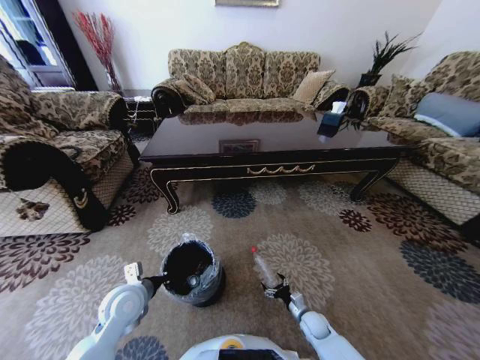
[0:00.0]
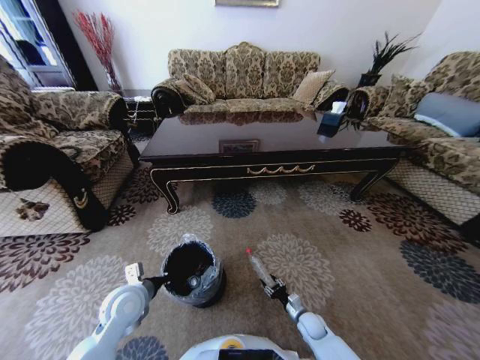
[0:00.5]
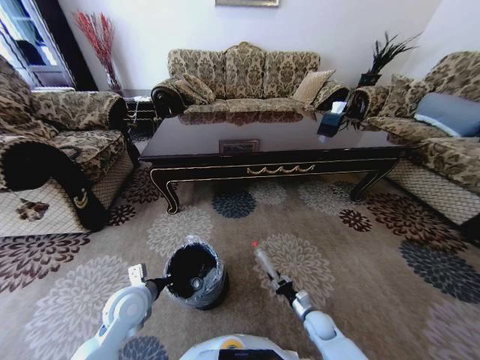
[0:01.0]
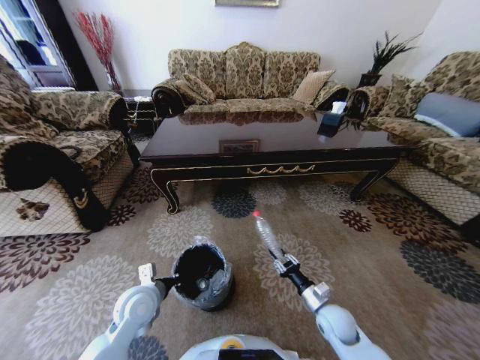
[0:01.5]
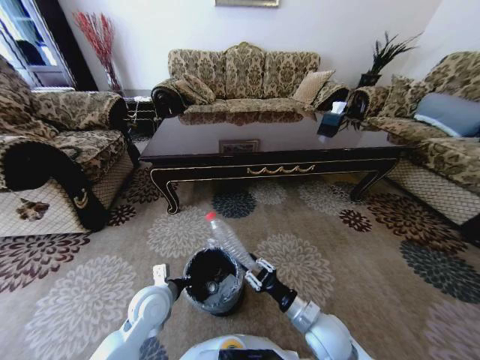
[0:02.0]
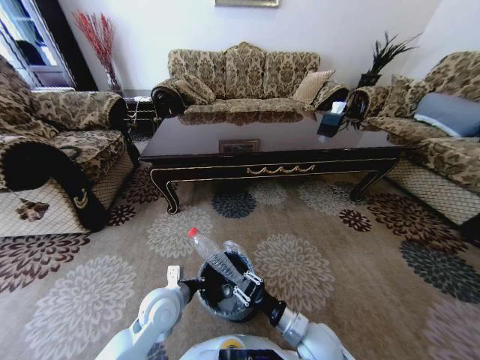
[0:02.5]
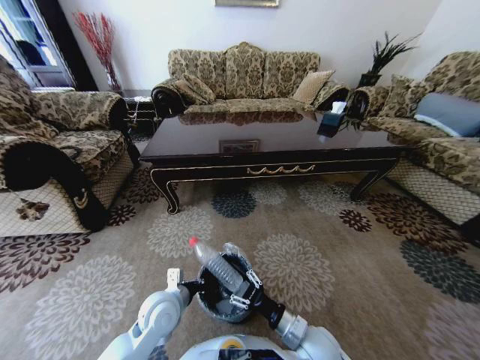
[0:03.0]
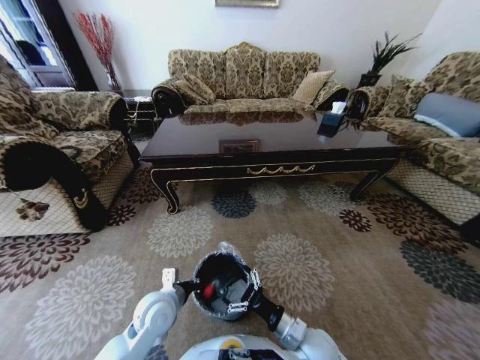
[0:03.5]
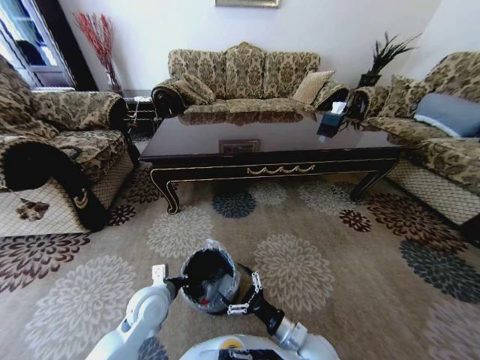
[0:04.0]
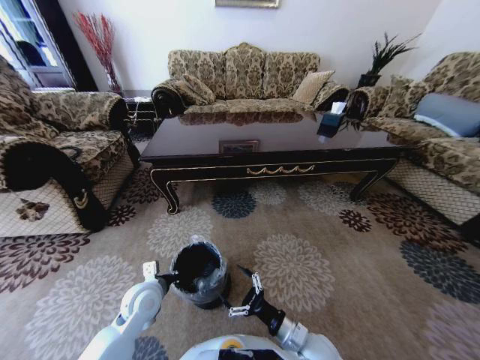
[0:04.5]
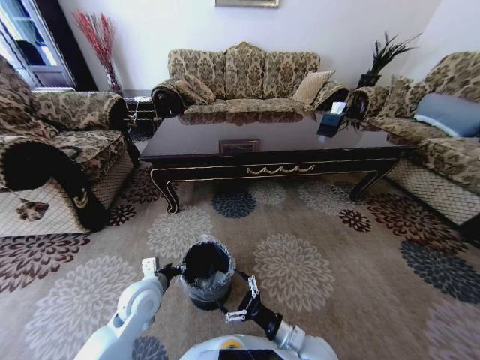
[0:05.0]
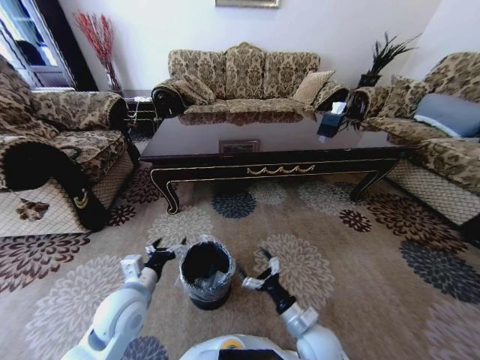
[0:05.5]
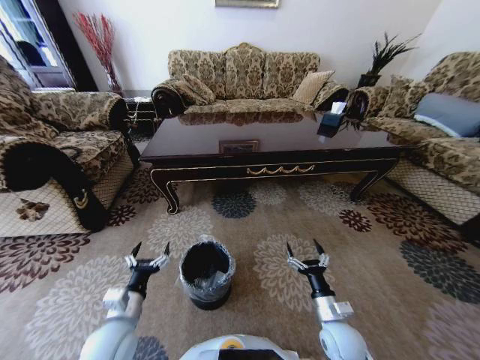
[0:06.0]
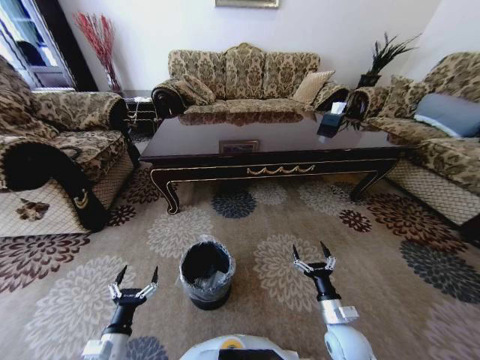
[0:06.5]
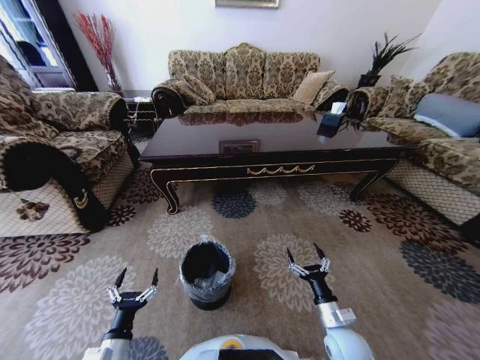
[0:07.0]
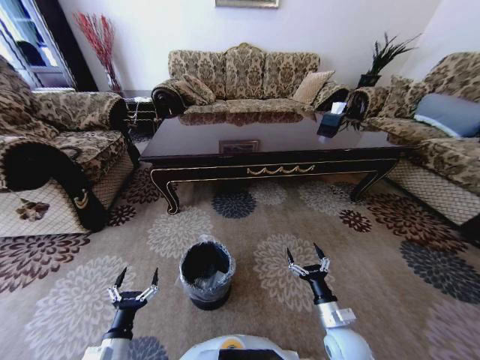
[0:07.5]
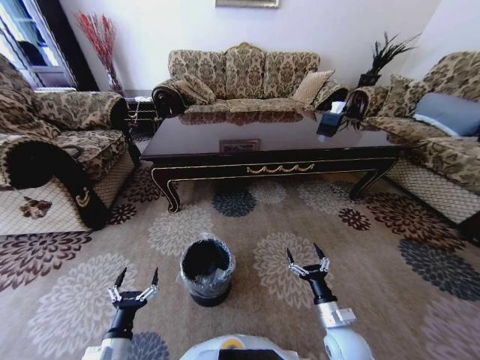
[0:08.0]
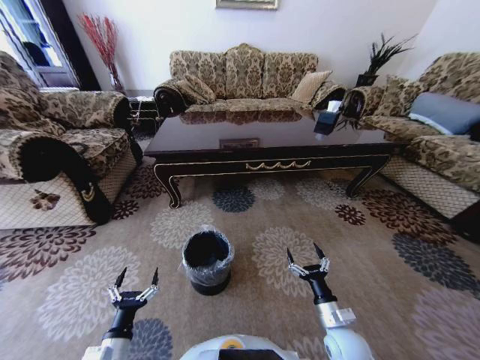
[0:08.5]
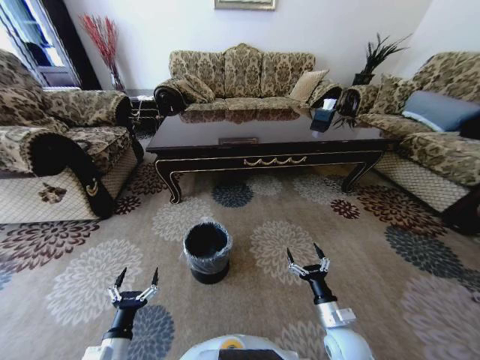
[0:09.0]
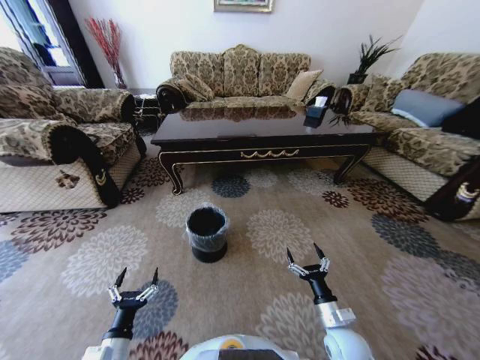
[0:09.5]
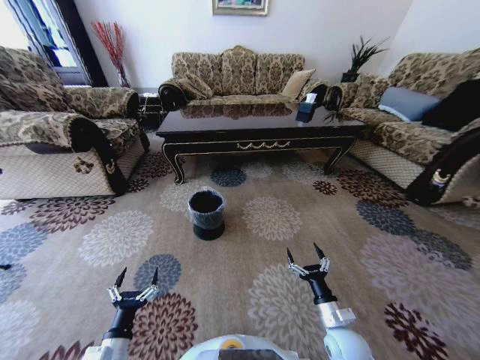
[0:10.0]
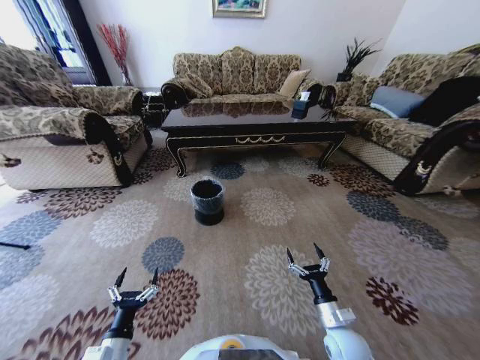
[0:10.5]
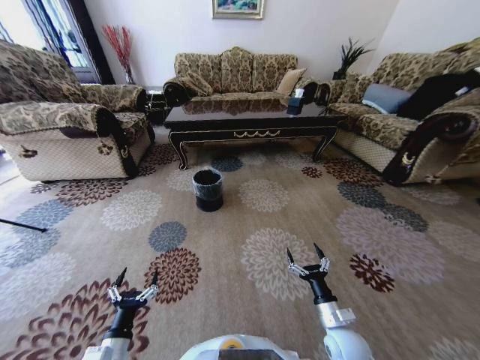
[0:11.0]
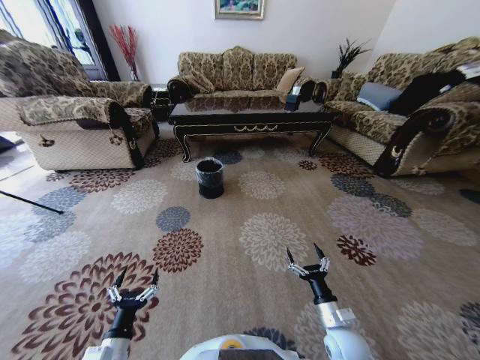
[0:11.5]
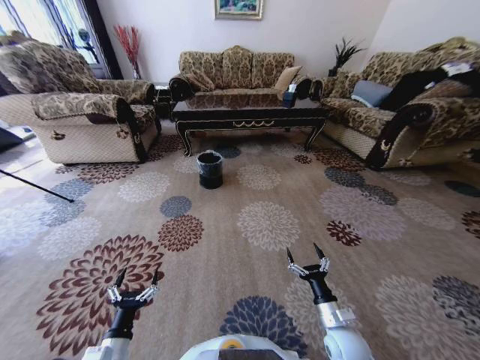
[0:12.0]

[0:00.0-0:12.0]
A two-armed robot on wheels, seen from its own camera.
Task of the whole recording: Move to the front of the table and pick up the trash from the floor, then place it into the trash bin.
0:00.0 to 0:02.0: The right gripper heads upward, covering approximately 20 cm, and closes. The left gripper travels to the right by roughly 5 cm.
0:02.0 to 0:04.0: The right gripper shifts by about 5 cm, and opens.
0:04.0 to 0:06.0: The right gripper travels to the right by some 10 cm, while the left gripper heads backward and to the left, covering some 10 cm, and opens up.
0:06.0 to 0:08.0: The left gripper is displaced backward and downward by about 10 cm.

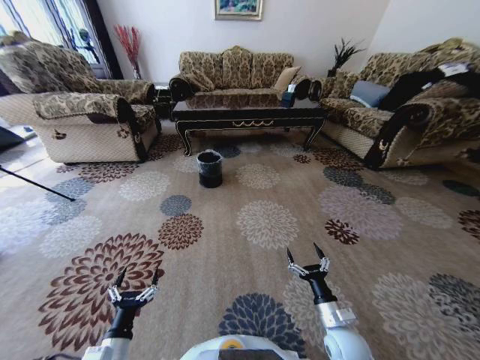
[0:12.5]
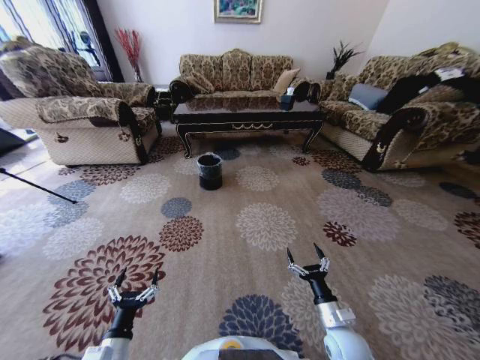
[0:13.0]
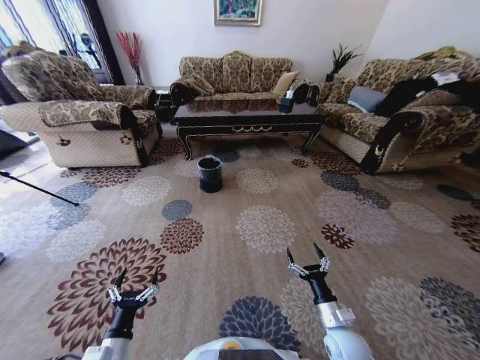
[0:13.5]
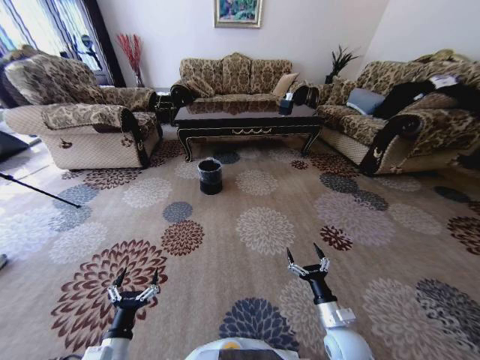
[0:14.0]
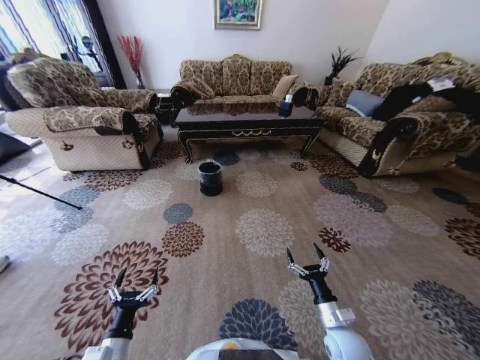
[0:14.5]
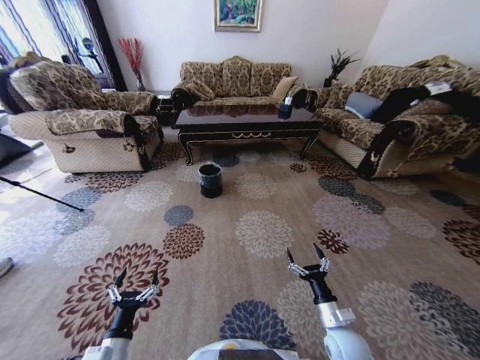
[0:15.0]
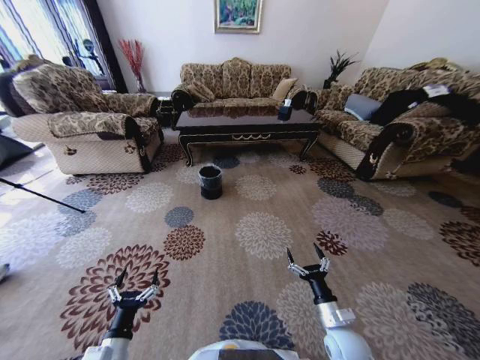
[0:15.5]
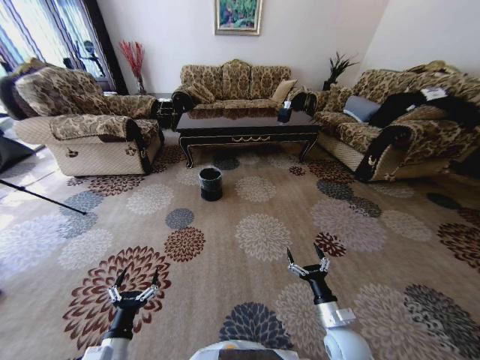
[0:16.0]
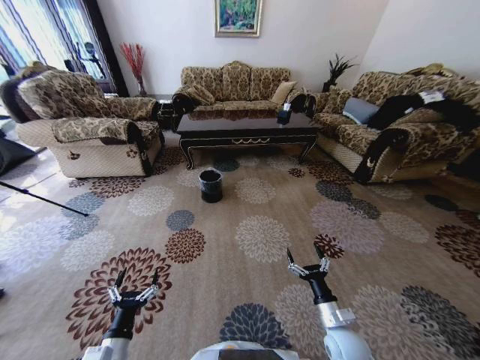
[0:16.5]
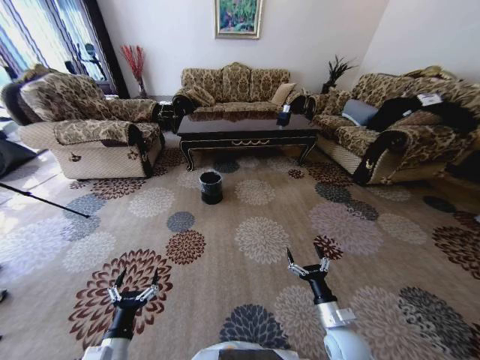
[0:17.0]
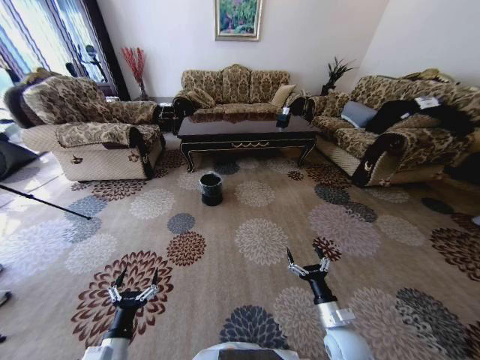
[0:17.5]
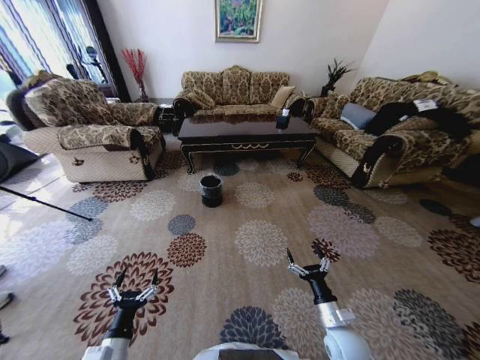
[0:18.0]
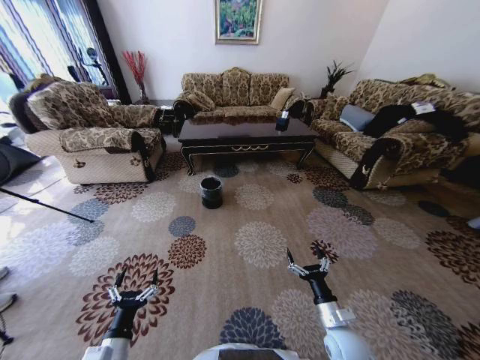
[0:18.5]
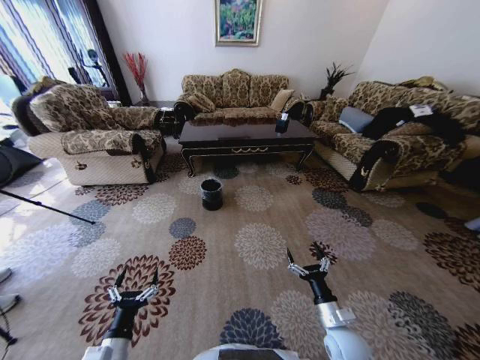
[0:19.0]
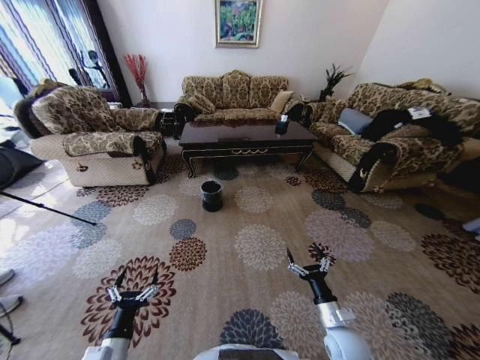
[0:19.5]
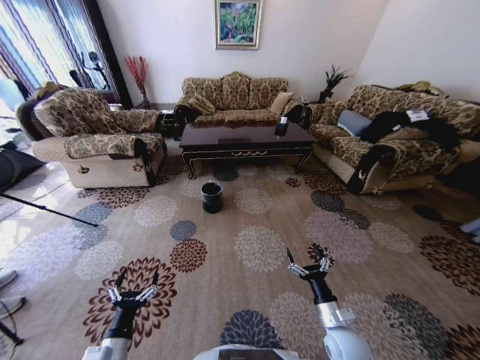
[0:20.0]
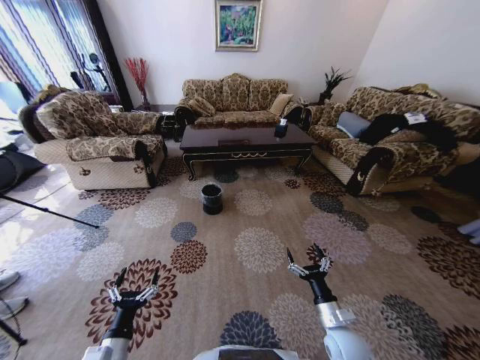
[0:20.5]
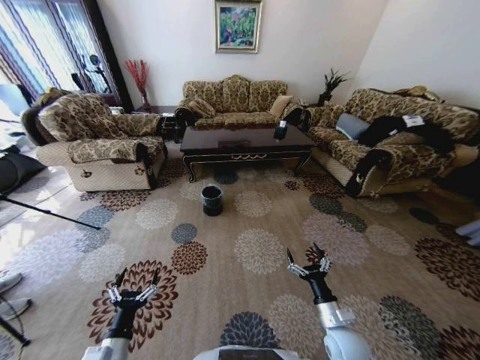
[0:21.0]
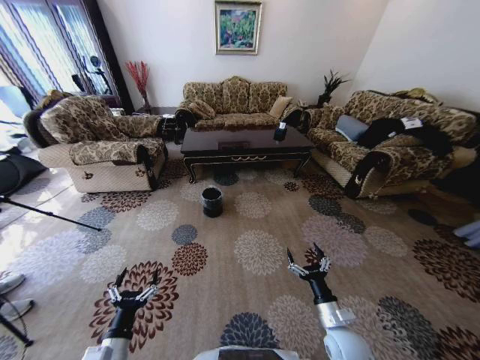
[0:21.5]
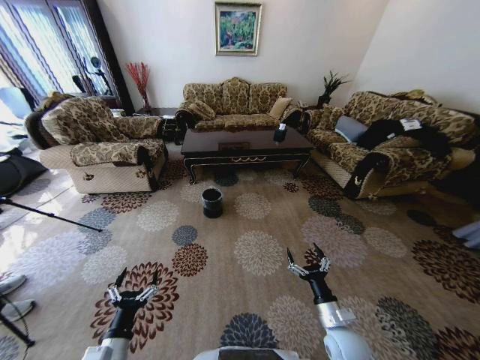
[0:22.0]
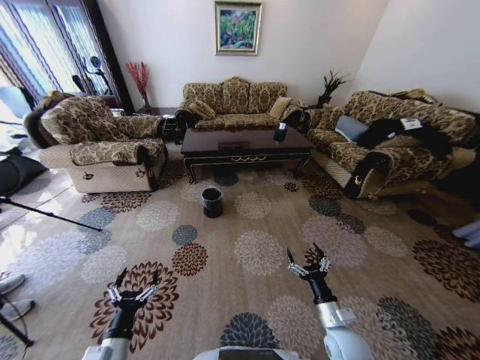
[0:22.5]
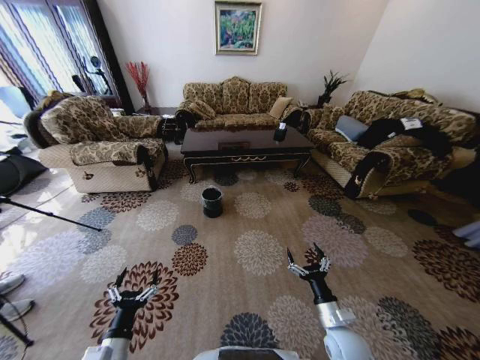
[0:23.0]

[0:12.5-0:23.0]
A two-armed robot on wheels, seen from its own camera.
Task of the whole recording: Move to the front of the table and pick up the trash from the floor, then place it into the trash bin.
0:21.0 to 0:23.0: Both grippers stay put.
